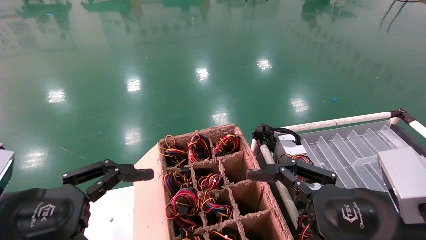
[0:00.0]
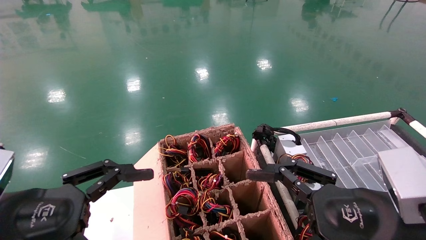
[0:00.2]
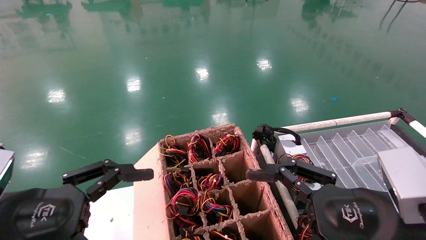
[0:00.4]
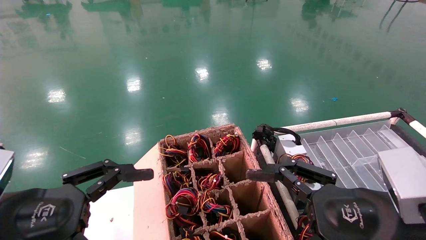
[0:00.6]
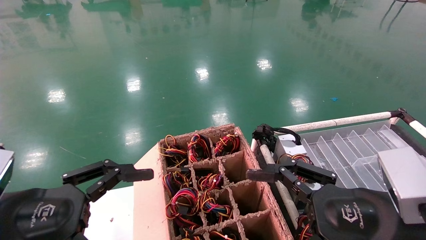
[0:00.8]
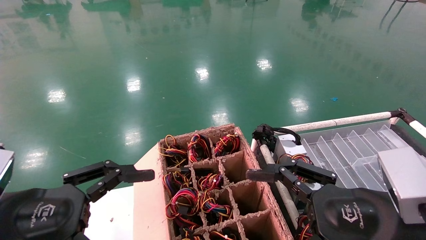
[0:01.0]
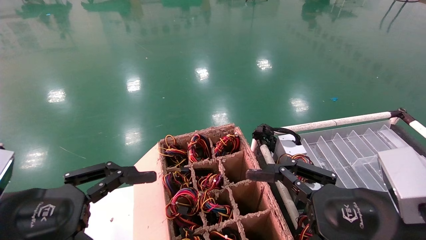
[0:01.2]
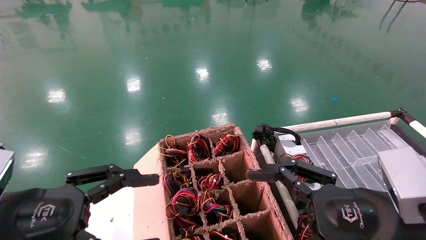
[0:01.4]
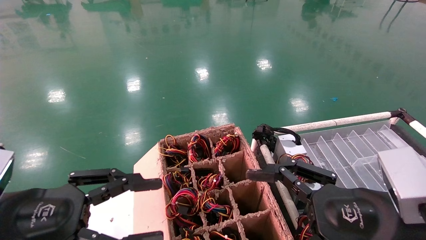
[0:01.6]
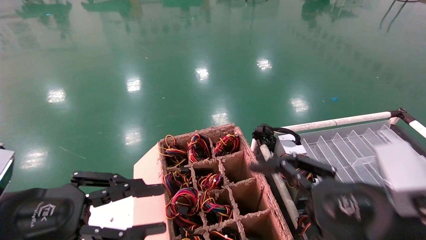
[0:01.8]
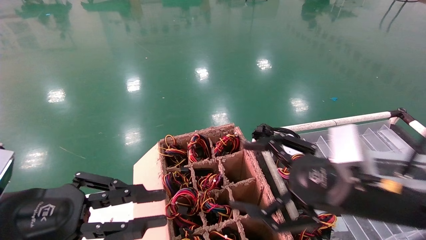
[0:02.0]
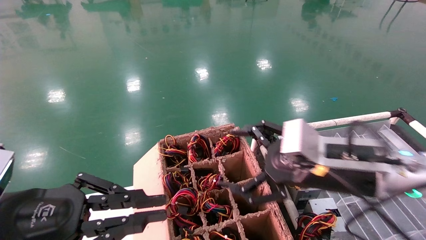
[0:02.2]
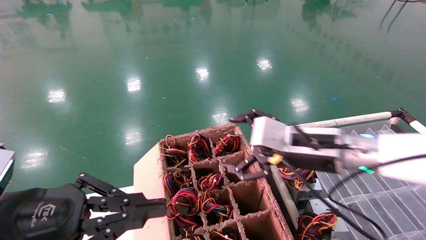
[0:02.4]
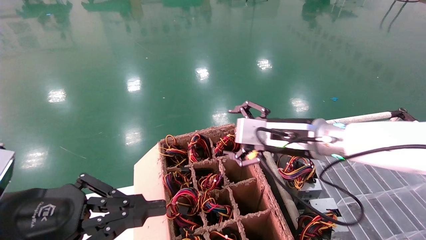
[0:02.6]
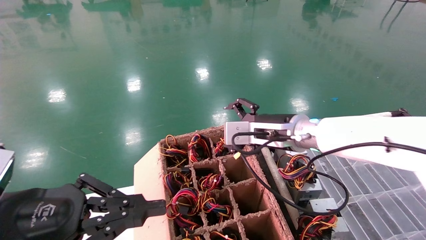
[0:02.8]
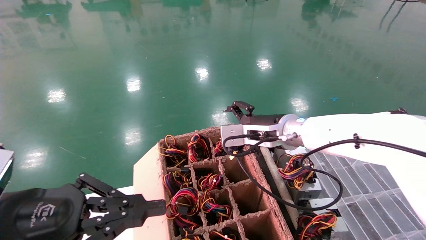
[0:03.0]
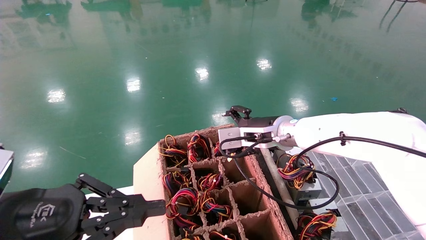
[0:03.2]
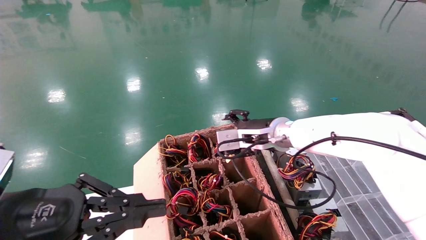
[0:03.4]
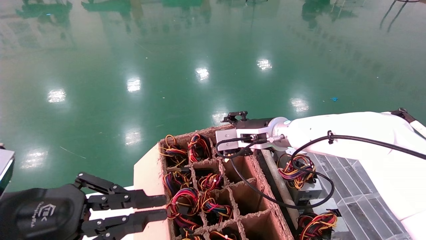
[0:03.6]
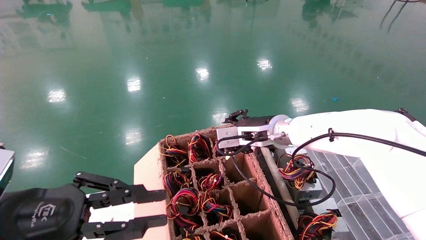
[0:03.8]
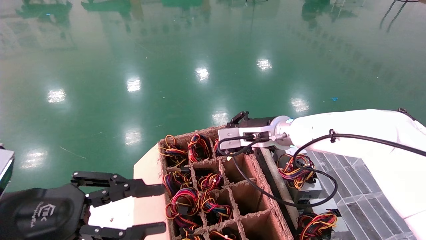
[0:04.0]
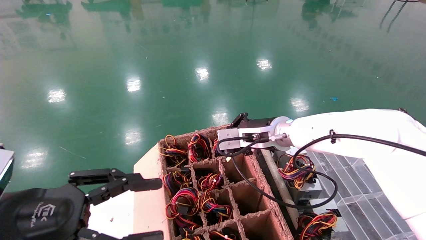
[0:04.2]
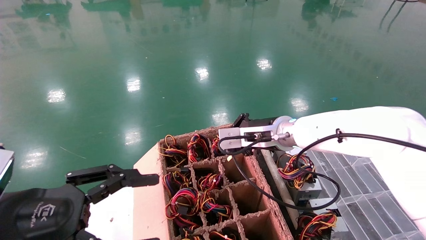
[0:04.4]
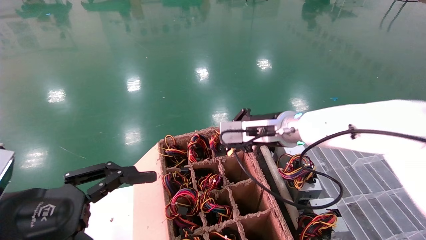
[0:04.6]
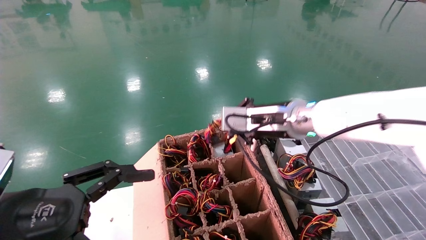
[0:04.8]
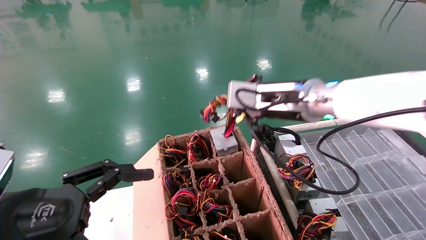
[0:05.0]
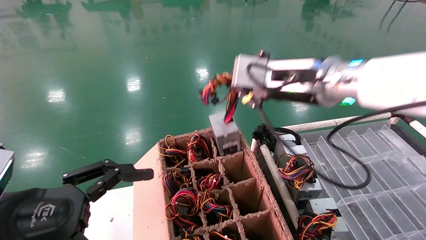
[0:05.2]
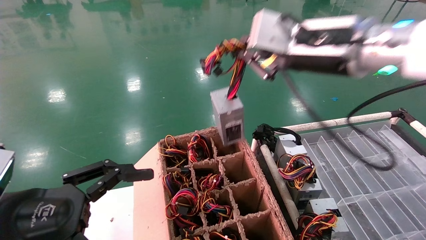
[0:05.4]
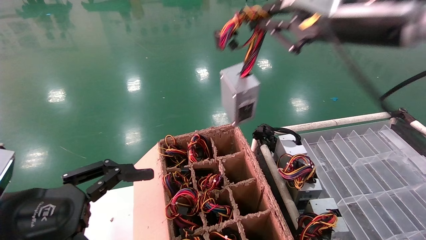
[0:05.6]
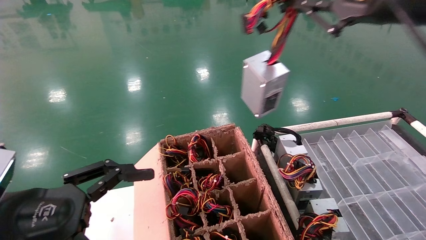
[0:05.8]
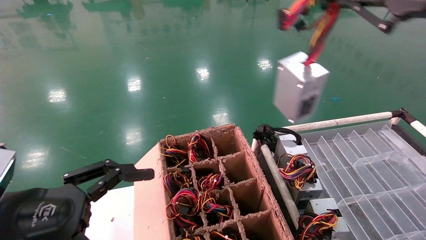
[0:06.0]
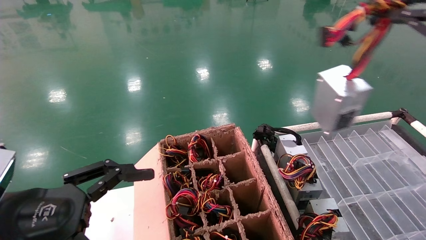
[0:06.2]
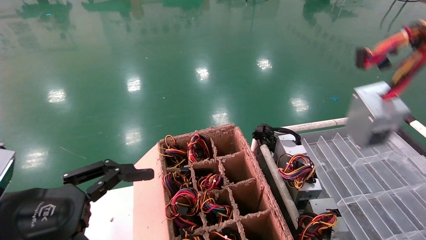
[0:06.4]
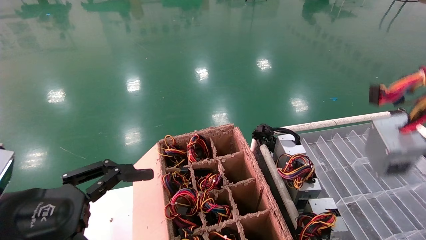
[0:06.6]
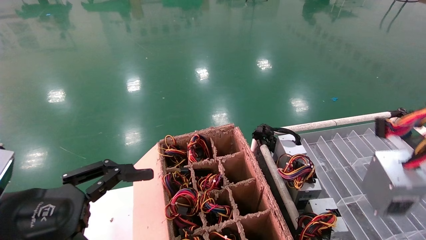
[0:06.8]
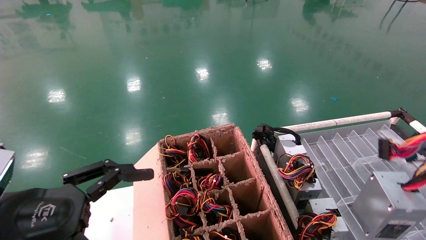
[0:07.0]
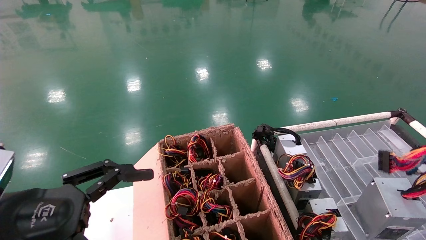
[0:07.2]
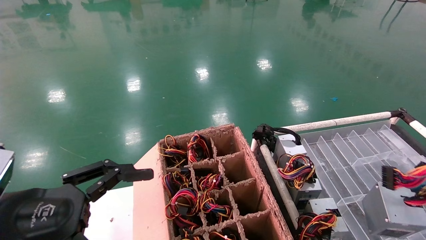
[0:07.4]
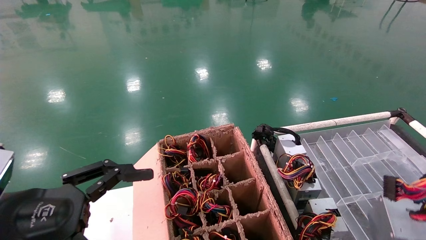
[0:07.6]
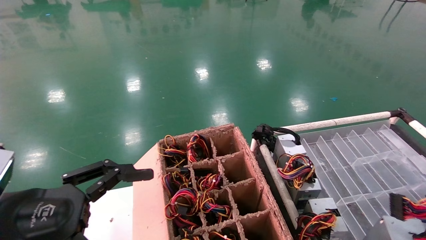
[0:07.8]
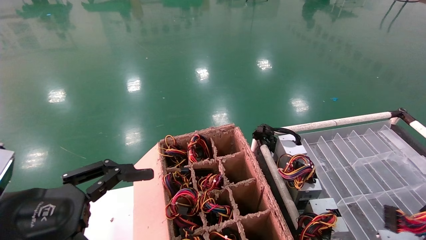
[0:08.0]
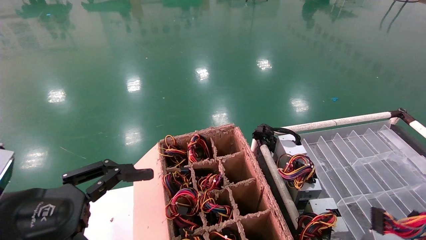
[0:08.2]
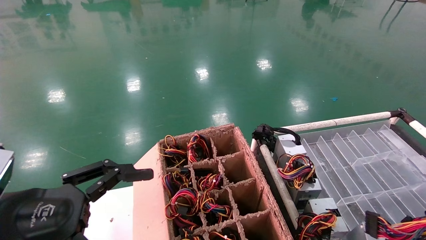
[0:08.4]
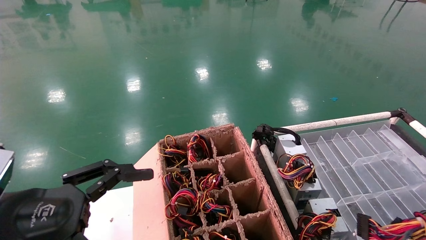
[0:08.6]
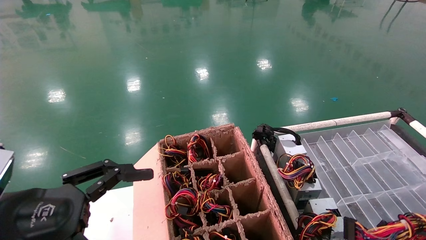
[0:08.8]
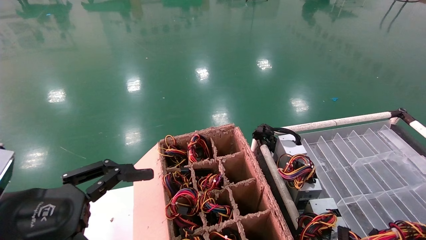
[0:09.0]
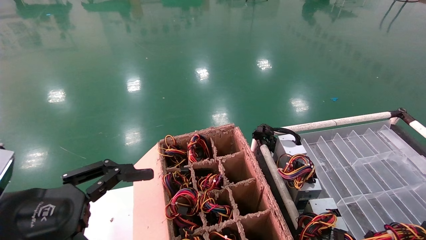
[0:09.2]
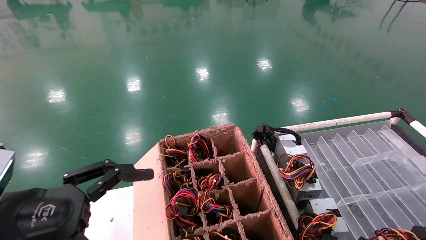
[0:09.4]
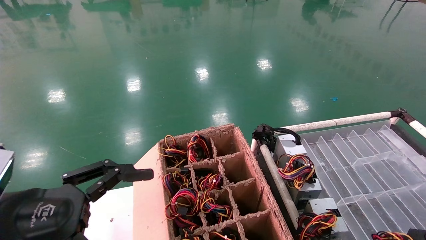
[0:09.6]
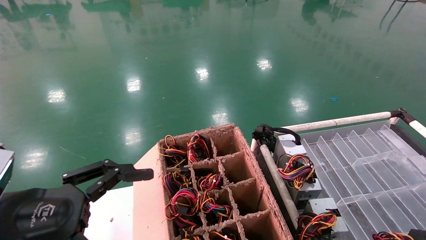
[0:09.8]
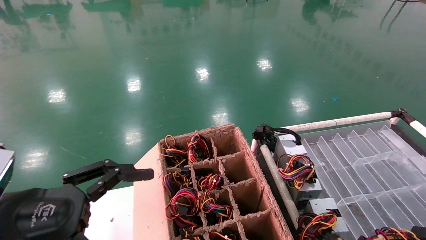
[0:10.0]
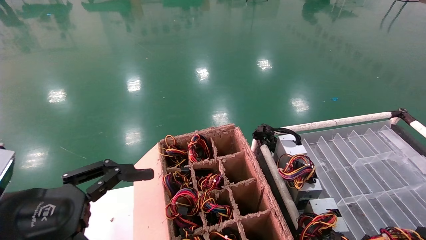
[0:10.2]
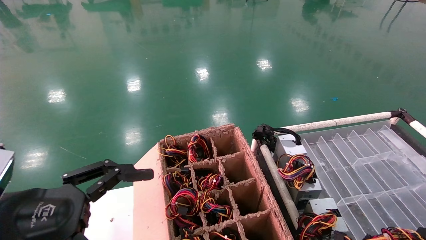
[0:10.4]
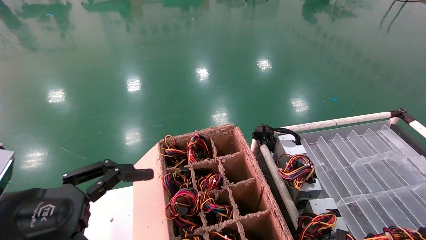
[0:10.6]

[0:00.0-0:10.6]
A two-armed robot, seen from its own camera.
Step, 0:01.4 to 0:04.4: Grab and lift the power supply from the large box.
0:00.0 to 0:01.6: Both grippers stay about where they are.
0:01.6 to 0:03.0: The left gripper closes. Meanwhile the right gripper shifts some 25 cm forward and to the left.
0:03.0 to 0:04.6: The right gripper closes, while the left gripper opens its fingers.
0:04.6 to 0:06.0: The right gripper heads backward, upward and to the right, covering about 35 cm.
0:06.0 to 0:07.6: The right gripper is displaced downward, to the right and backward by roughly 25 cm.
0:07.6 to 0:09.0: The right gripper shifts about 5 cm downward.
0:09.0 to 0:10.6: The grippers stay close to where they were, moving slightly.

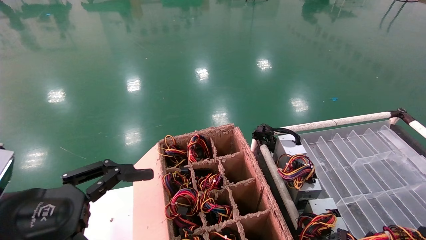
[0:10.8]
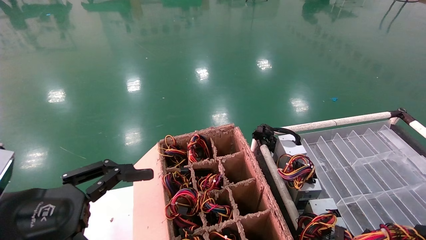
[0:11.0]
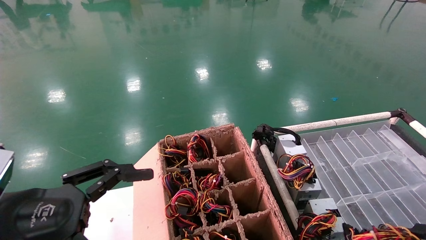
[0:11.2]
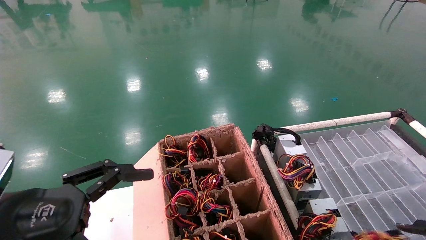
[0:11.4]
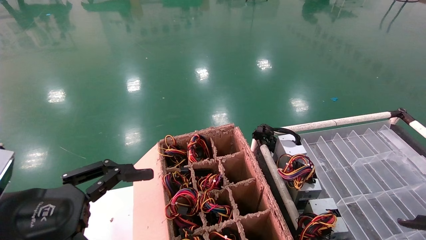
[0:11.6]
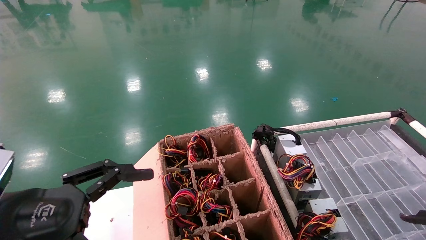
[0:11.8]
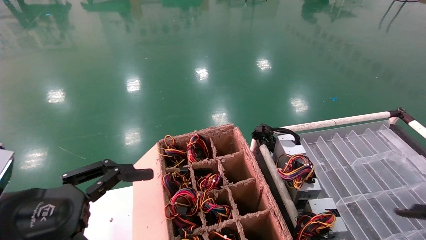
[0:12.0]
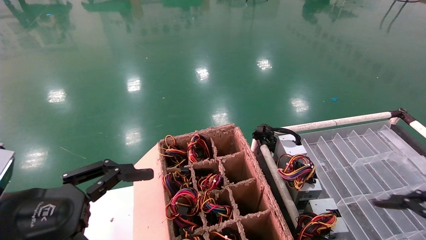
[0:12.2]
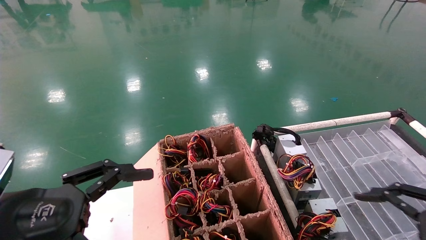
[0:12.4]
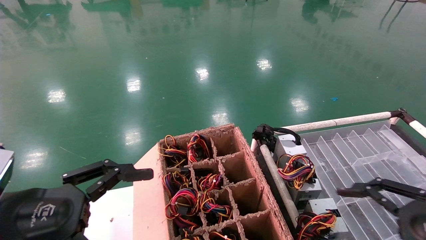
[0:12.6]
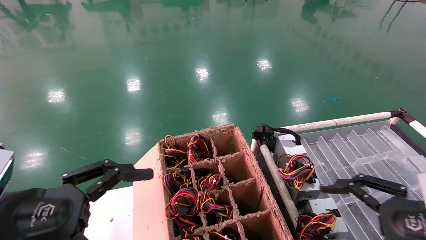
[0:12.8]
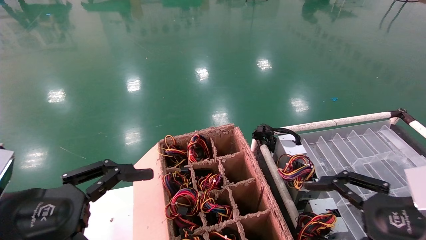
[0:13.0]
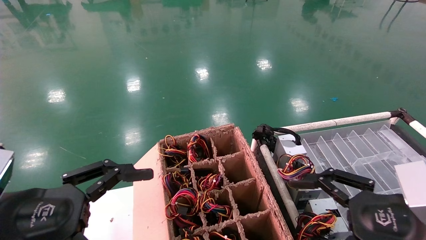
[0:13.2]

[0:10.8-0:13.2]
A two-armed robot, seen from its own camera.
0:10.8 to 0:12.0: The right gripper opens.
0:12.0 to 0:13.2: The right gripper moves to the left, some 10 cm, and opens up.
